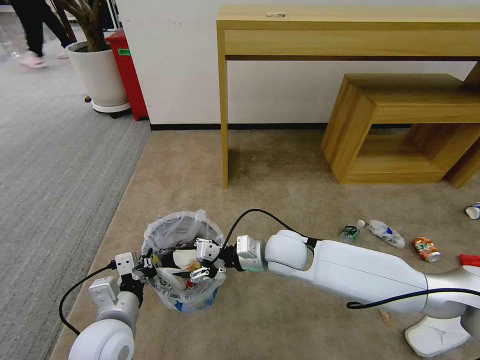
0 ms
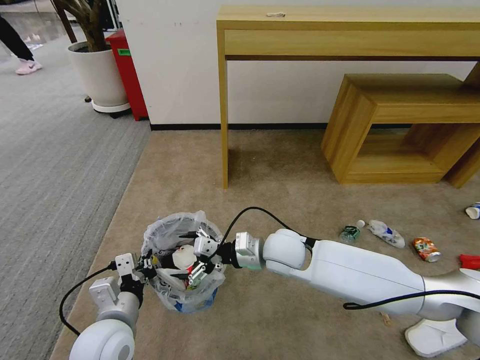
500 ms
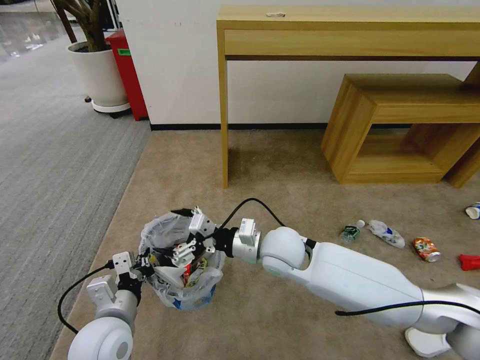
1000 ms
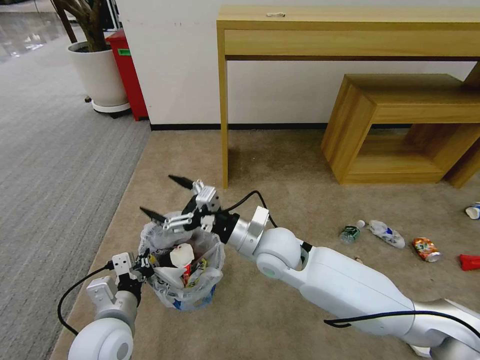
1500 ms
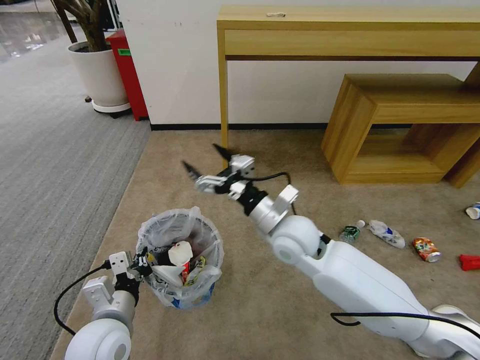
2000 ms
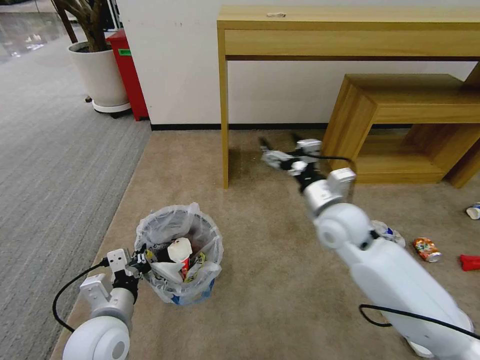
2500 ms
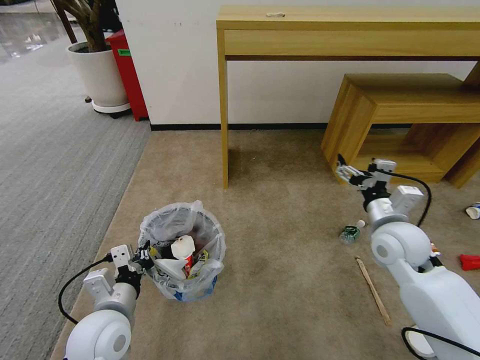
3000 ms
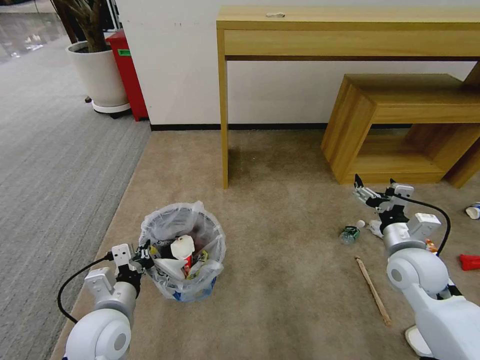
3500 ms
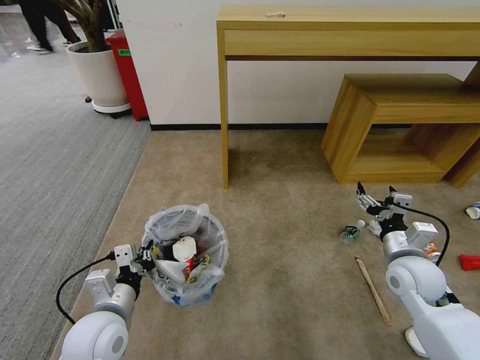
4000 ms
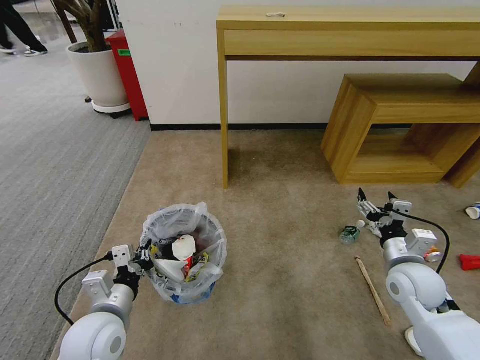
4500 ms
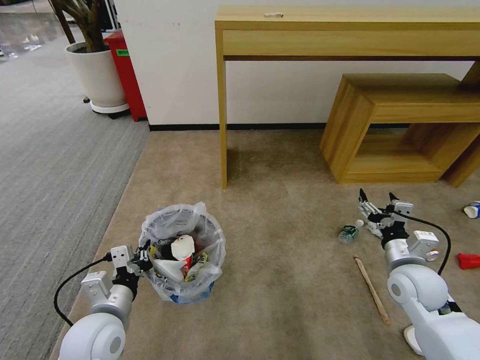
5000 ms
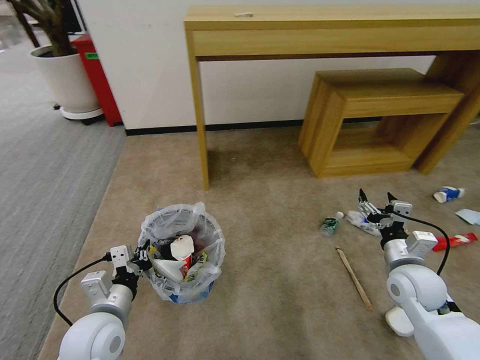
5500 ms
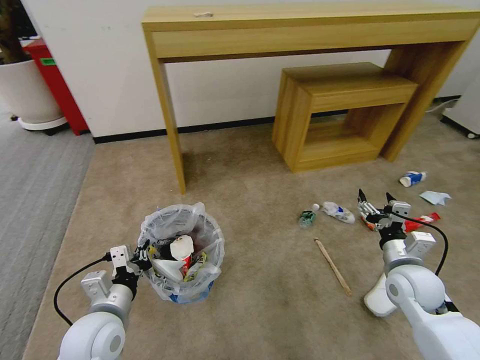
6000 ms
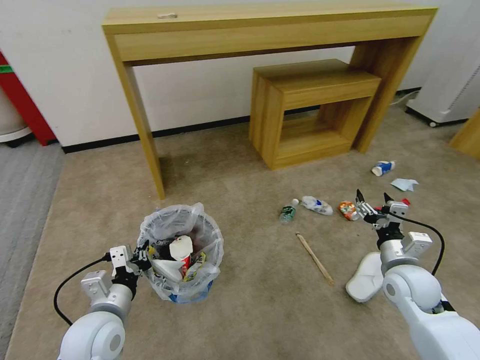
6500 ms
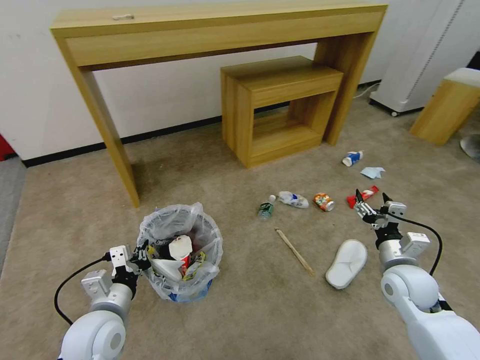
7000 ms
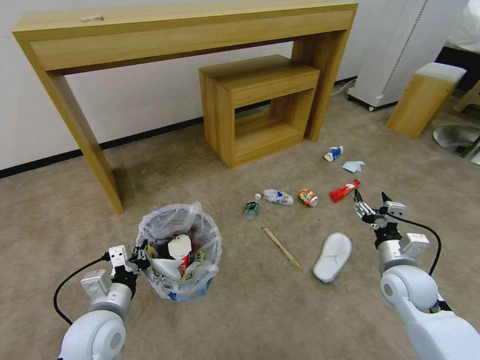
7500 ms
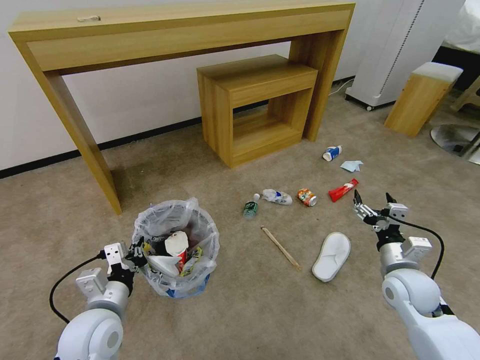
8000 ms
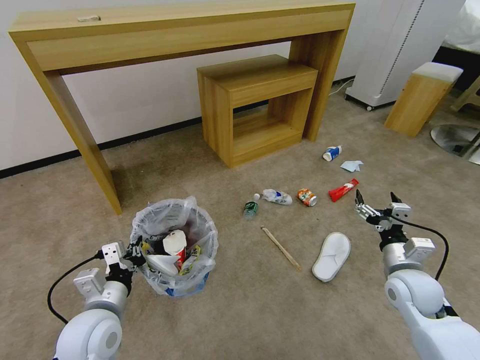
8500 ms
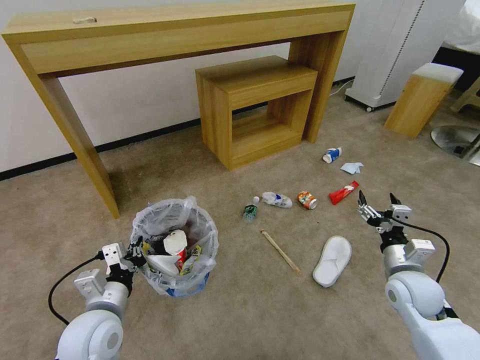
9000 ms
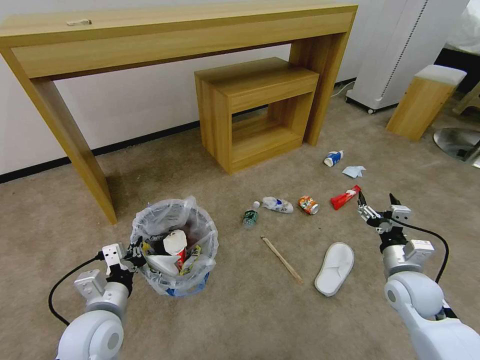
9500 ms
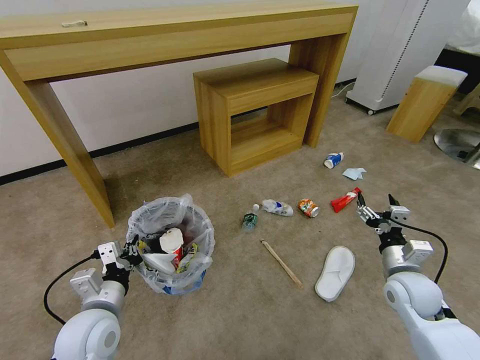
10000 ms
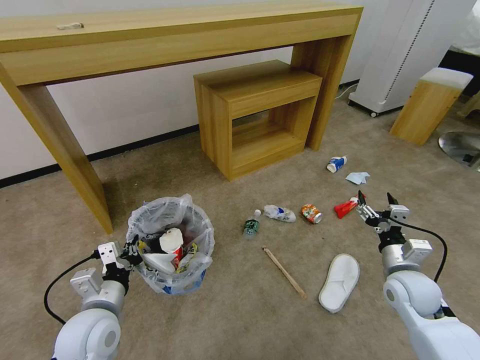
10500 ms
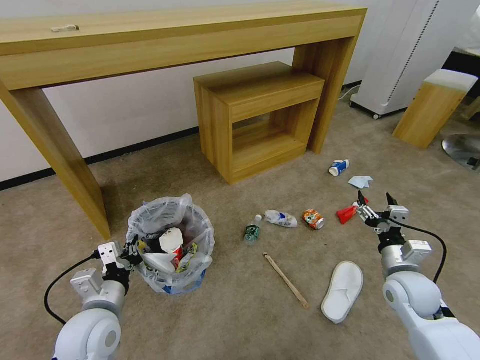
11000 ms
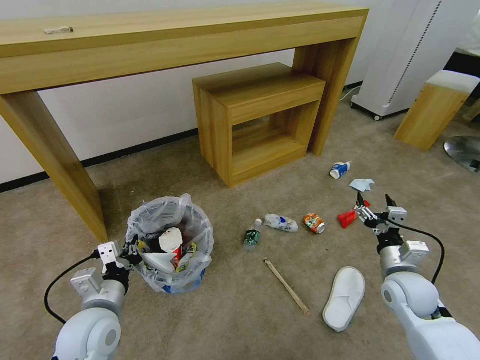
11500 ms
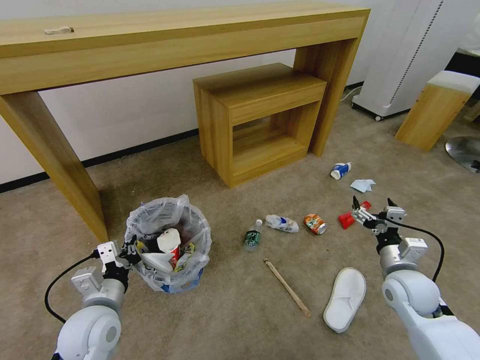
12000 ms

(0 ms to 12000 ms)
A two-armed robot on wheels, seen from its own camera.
Task of the whole recording: Pick up the trash bin and place the garbage on the floor into it.
0 ms - 2000 ms: The right gripper shifts about 5 cm upward, and opens.
2000 ms - 4000 ms: The right gripper moves to the right, approximately 25 cm.

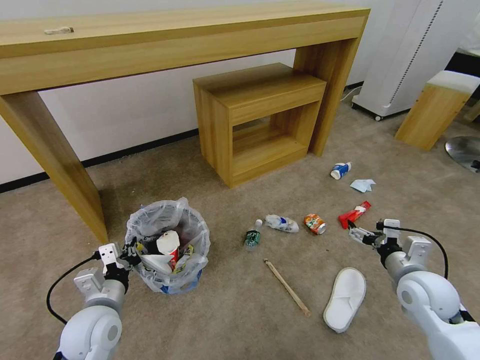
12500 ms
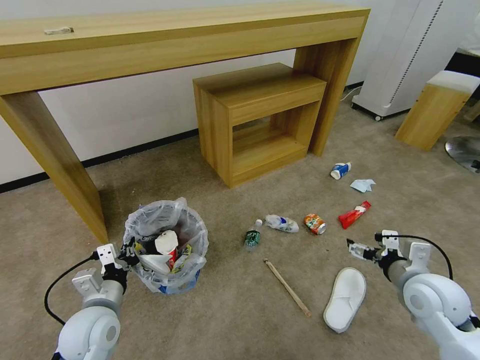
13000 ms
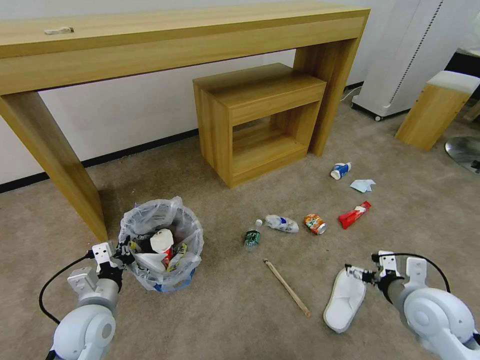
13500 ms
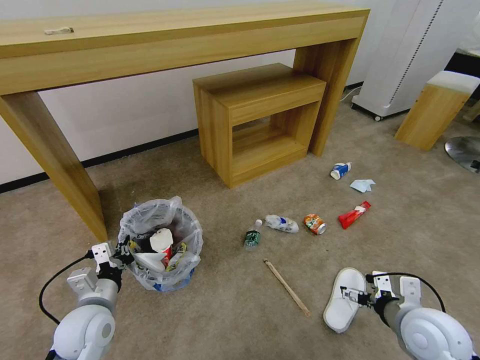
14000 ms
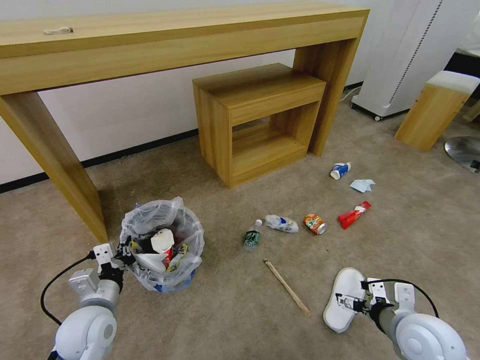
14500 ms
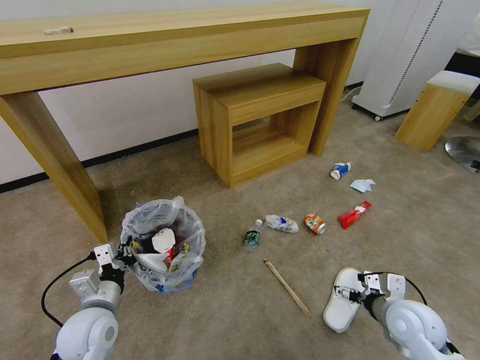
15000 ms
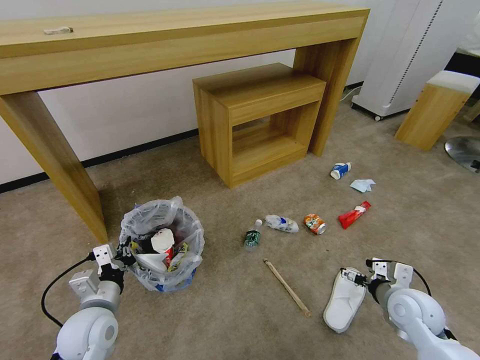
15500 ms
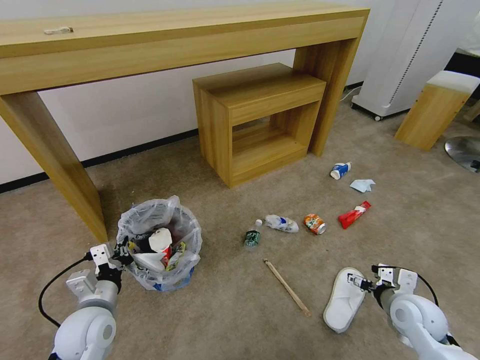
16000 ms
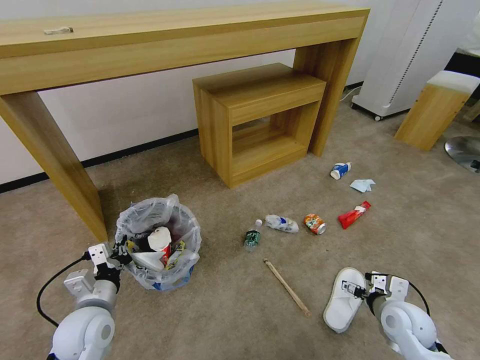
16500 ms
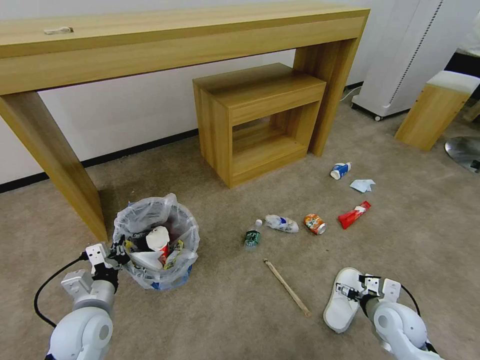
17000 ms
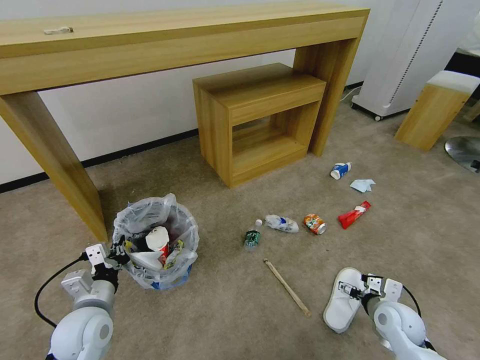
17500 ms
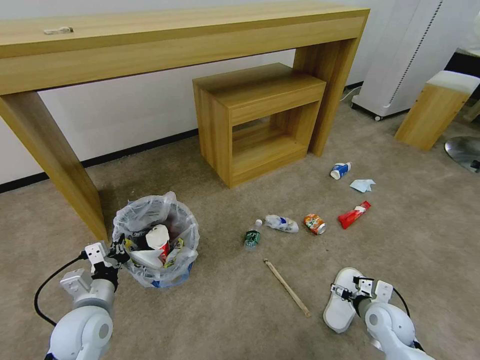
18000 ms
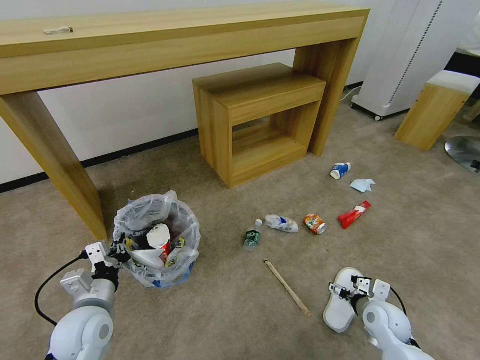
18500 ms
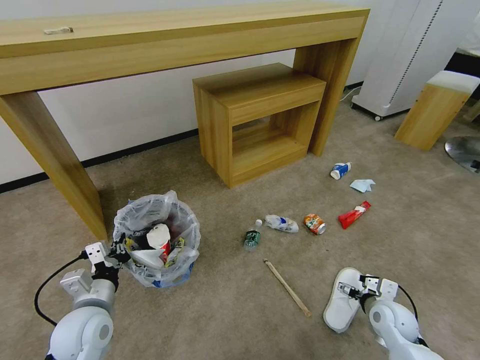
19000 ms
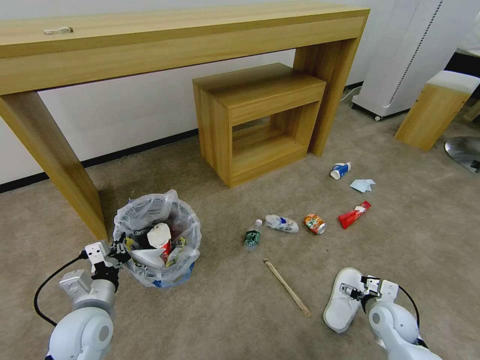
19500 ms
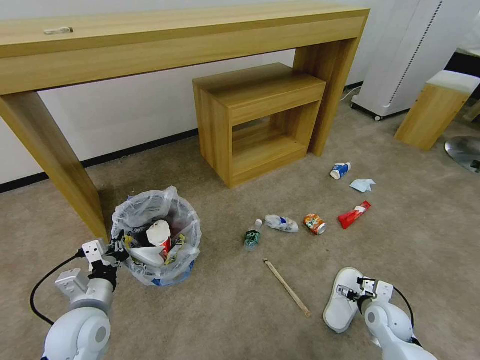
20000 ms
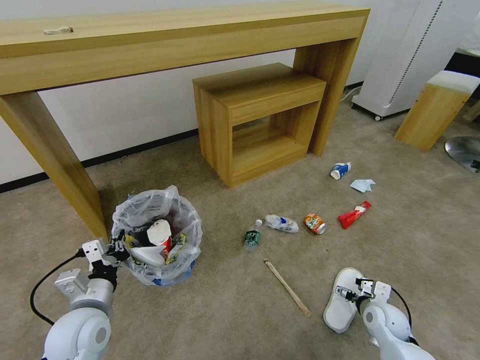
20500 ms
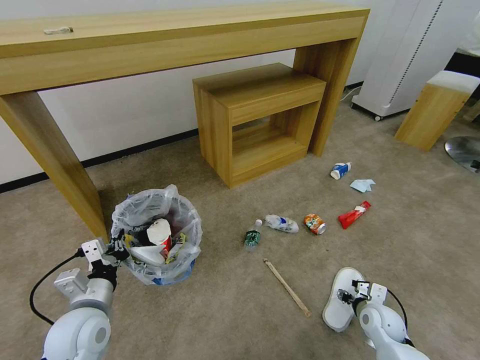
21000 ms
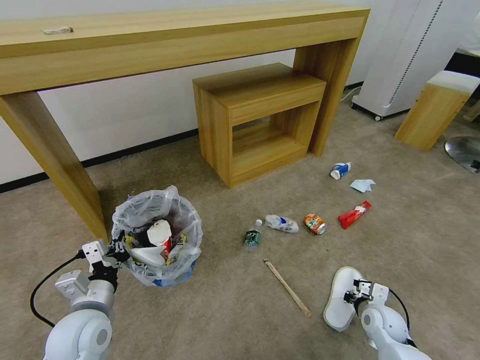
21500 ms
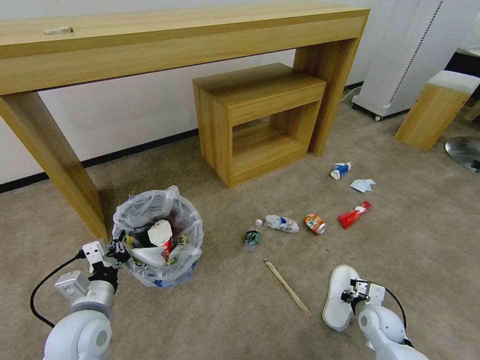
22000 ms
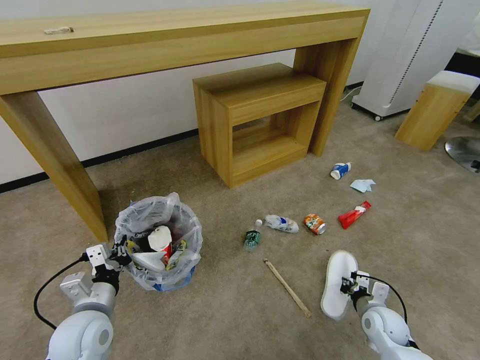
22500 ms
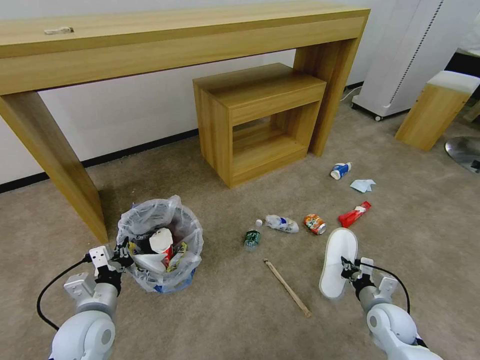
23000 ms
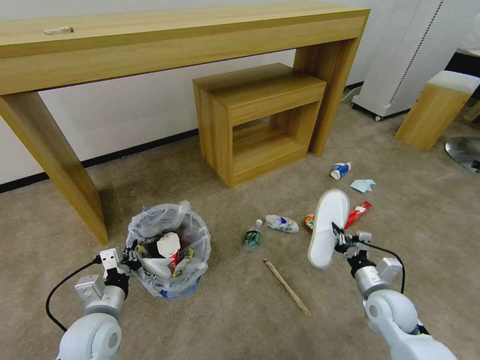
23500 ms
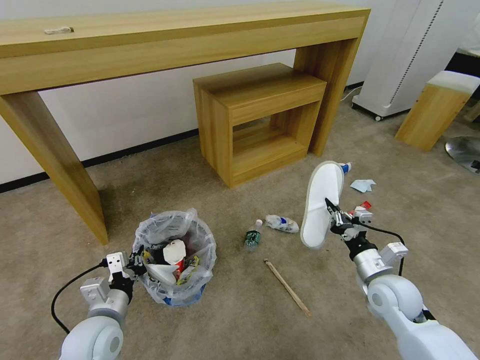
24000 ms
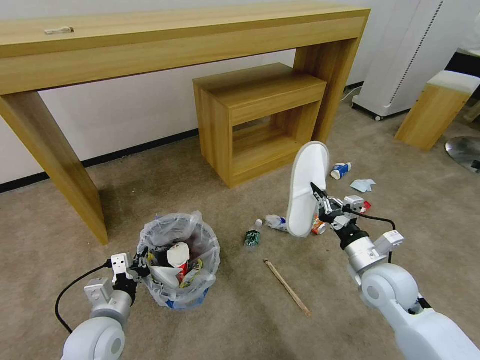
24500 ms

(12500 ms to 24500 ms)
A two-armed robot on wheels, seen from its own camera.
Task of the whole recording: Pick up the trash bin and place the garbage on the floor into it.
12500 ms - 14500 ms: The right gripper travels backward by approximately 10 cm.
14500 ms - 16500 ms: The right gripper heads downward and forward, covering roughly 10 cm.
16500 ms - 18500 ms: The right gripper travels downward by approximately 5 cm.
18500 ms - 20500 ms: The grippers move only a little.
20500 ms - 22500 ms: The right gripper closes its fingers.
22500 ms - 24500 ms: The right gripper heads upward, covering some 20 cm.

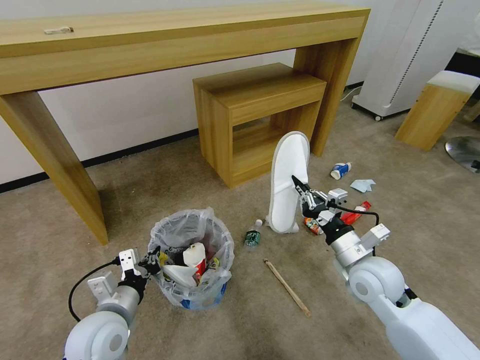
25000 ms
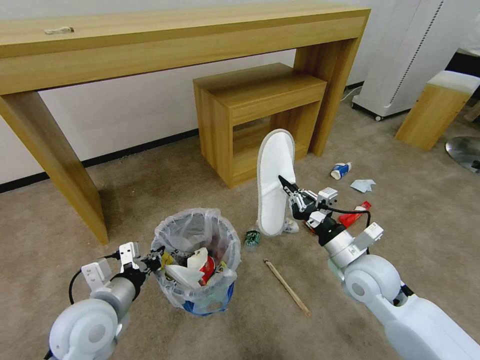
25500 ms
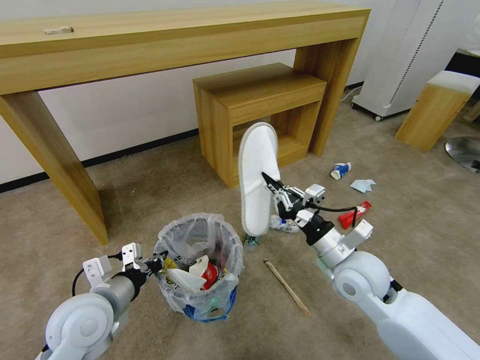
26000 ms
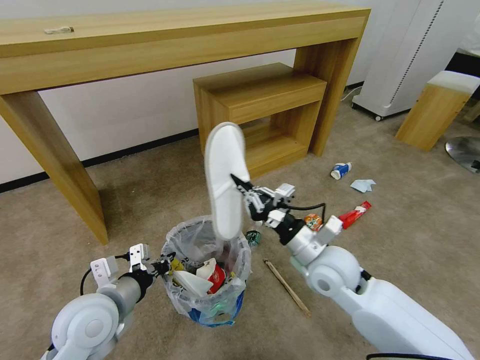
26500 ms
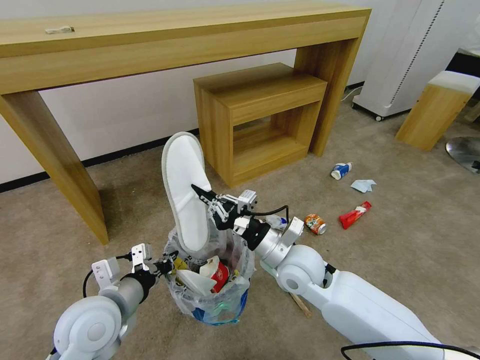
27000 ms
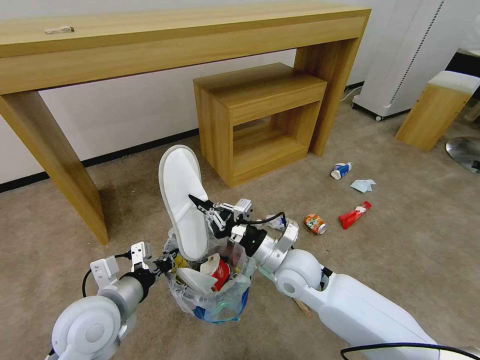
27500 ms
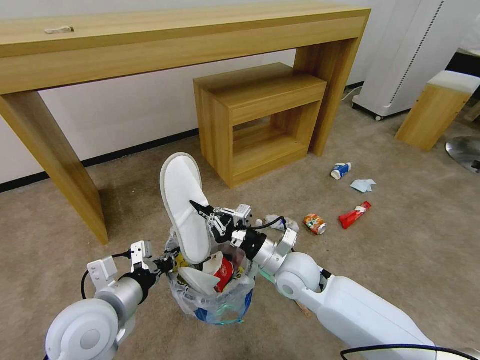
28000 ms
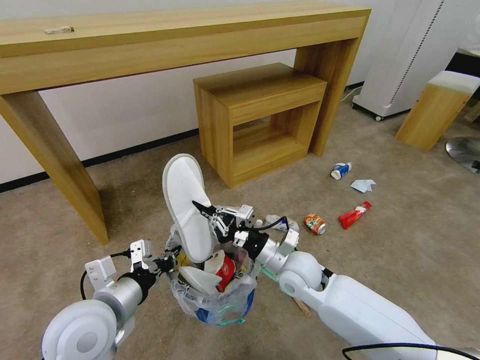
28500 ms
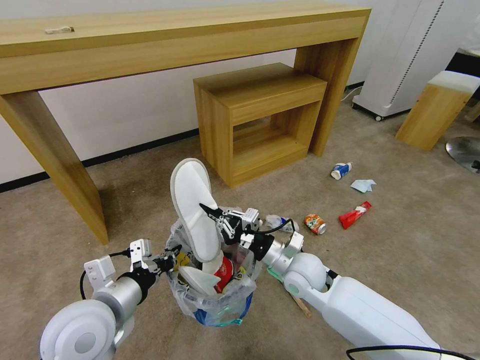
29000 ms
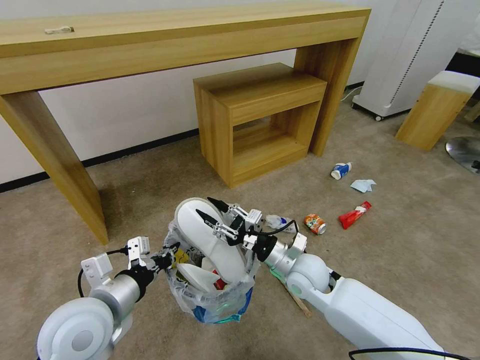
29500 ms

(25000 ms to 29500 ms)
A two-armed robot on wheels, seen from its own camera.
Task of the whole recording: Pick up the trash bin and place the garbage on the floor into it.
25000 ms - 27000 ms: The right gripper goes about 15 cm to the left. The left gripper moves upward, about 5 cm.
27000 ms - 29500 ms: The right gripper heads downward, covering about 5 cm, and opens.
